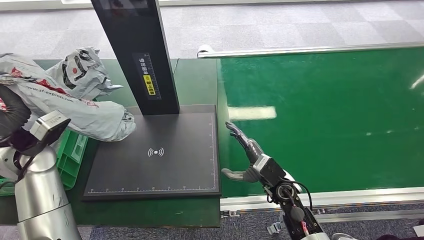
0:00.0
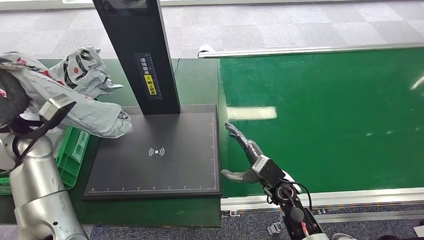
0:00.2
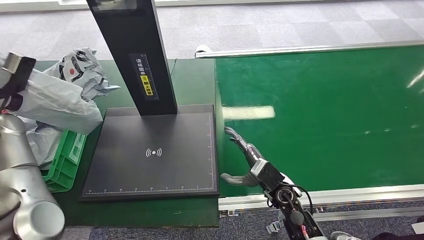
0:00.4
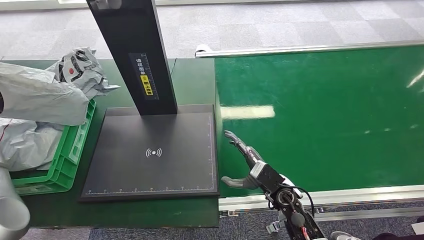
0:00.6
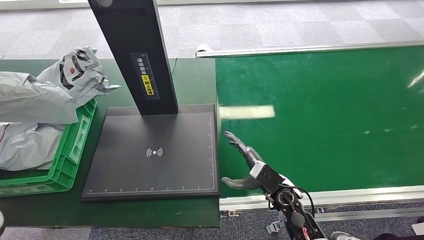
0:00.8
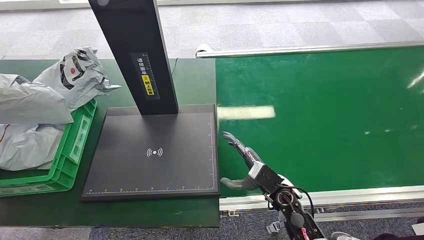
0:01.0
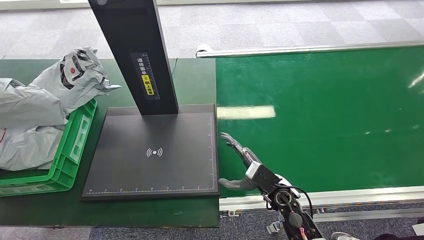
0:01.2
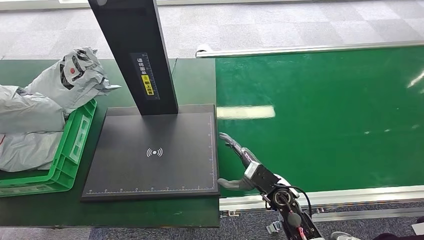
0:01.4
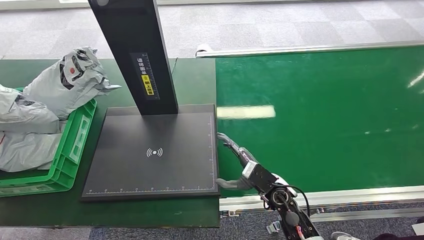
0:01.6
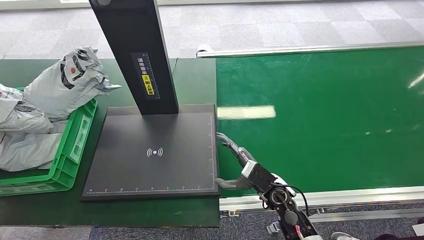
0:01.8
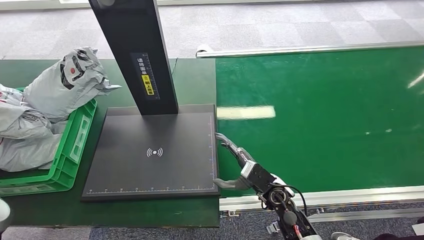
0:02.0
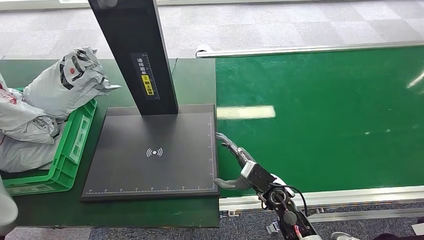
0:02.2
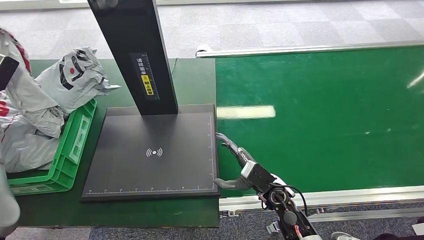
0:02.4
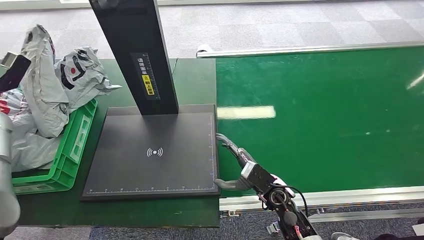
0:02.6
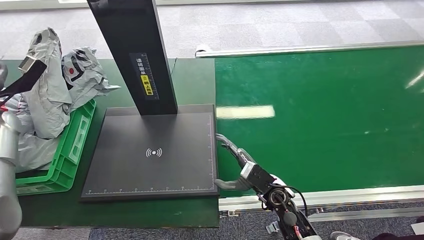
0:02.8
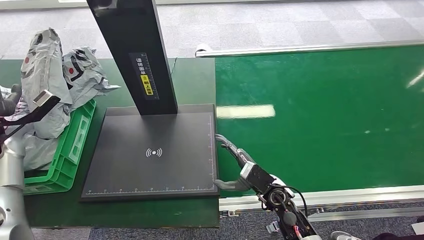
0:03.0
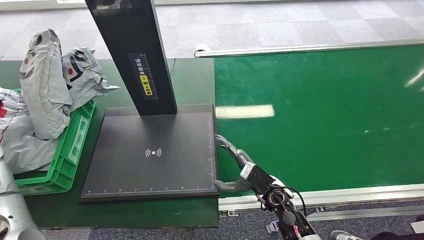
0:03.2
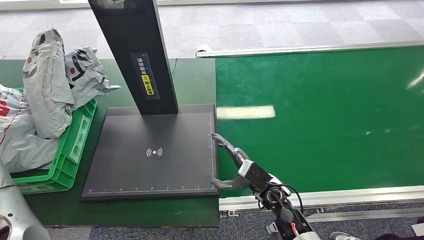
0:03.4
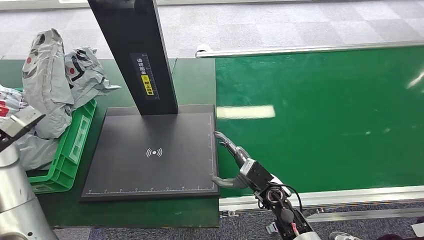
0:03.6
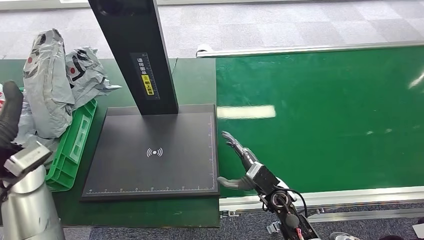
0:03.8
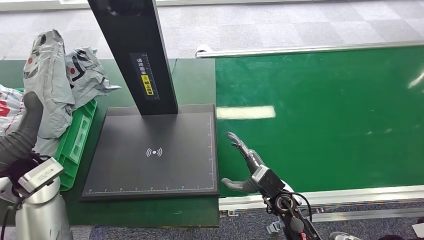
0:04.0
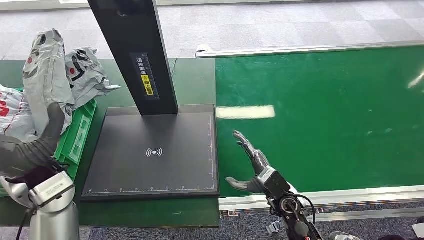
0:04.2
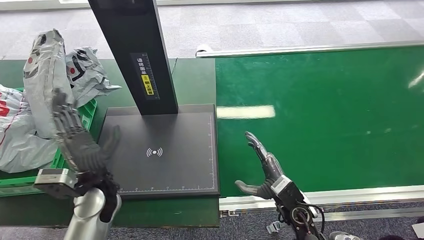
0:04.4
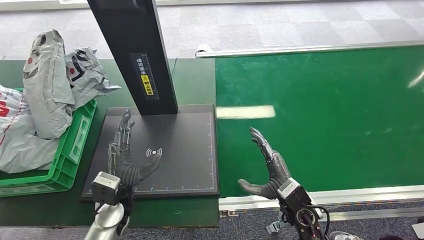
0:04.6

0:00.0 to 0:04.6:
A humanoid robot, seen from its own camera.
Step, 0:00.4 to 0:04.6: Place the package into the parcel locker.
0:01.6 to 0:03.0: The left hand shifts roughly 15 cm to the right and forward.
0:03.0 to 0:04.6: The left hand heads to the right and downward, covering roughly 30 cm; the right hand moves approximately 5 cm.
